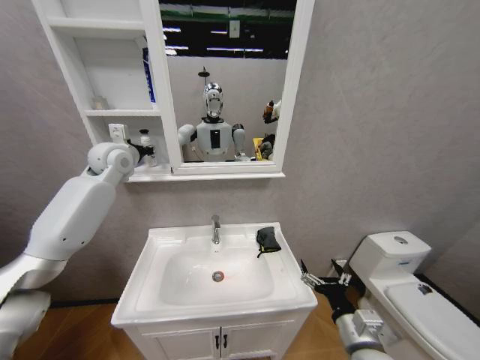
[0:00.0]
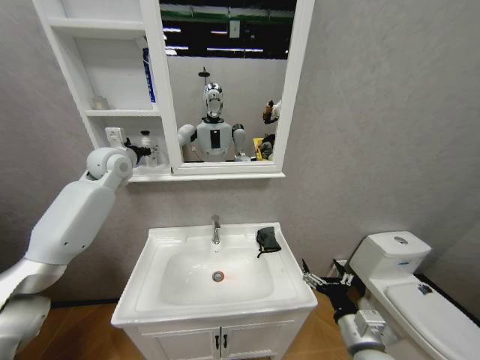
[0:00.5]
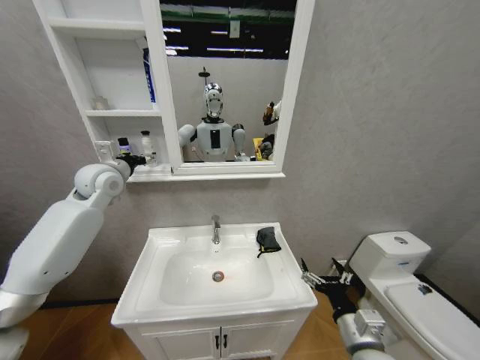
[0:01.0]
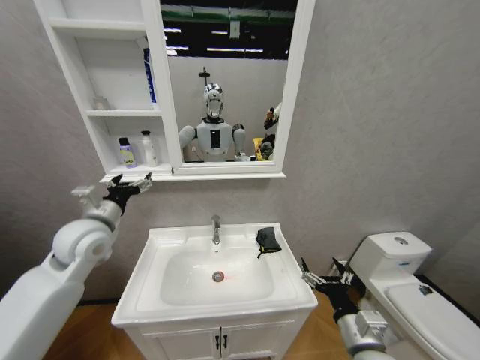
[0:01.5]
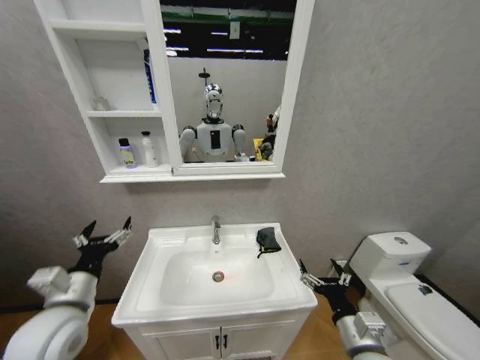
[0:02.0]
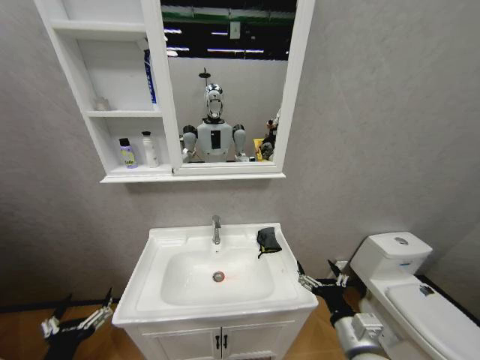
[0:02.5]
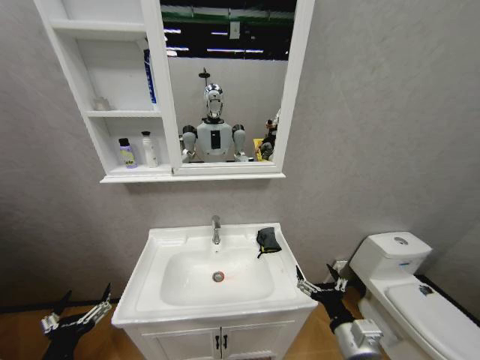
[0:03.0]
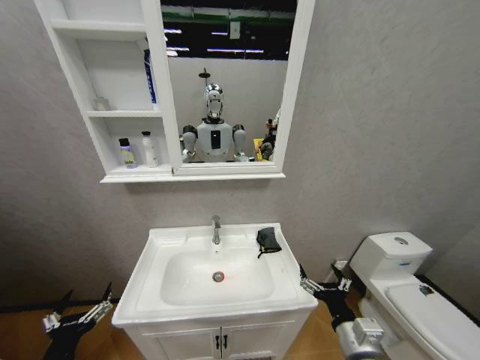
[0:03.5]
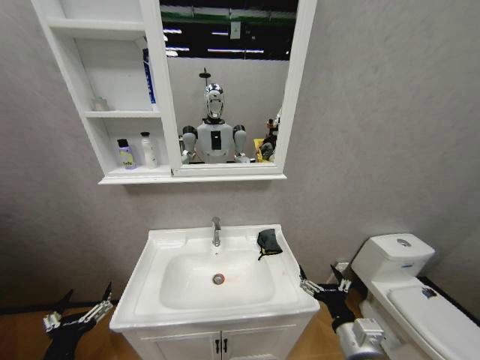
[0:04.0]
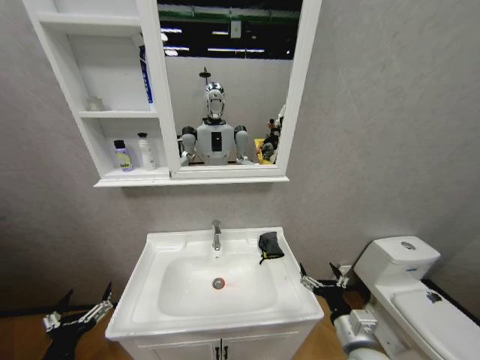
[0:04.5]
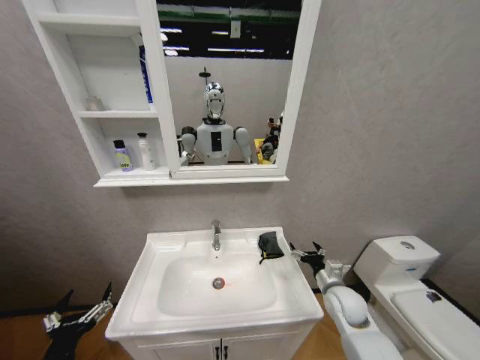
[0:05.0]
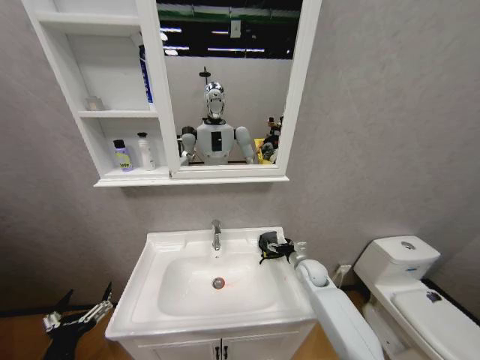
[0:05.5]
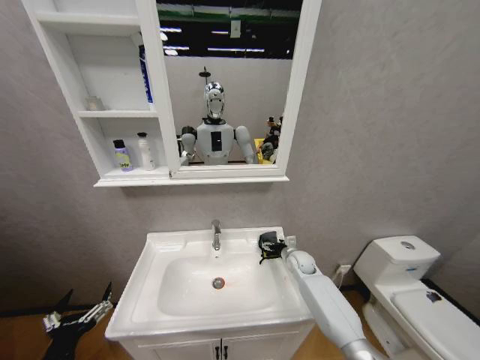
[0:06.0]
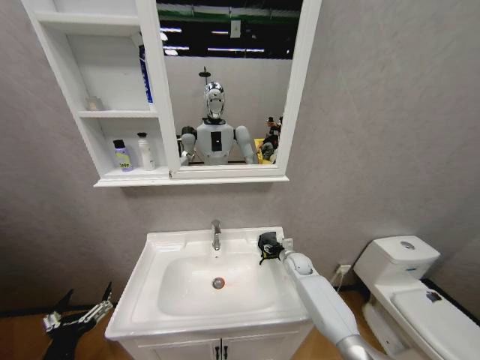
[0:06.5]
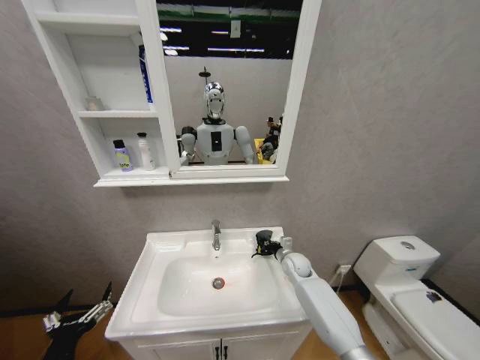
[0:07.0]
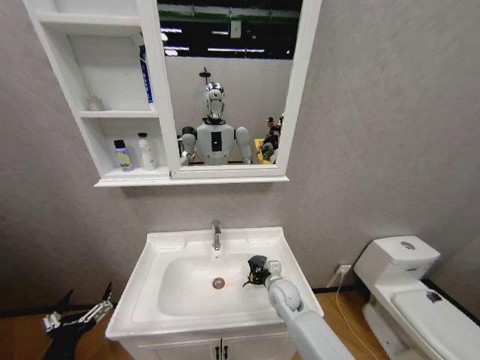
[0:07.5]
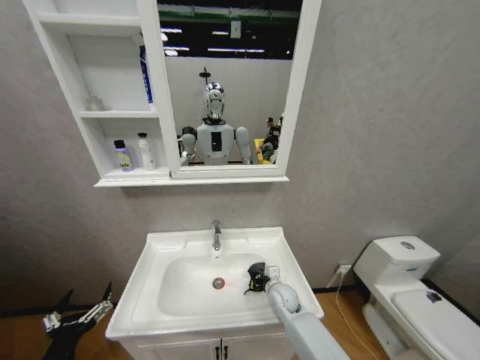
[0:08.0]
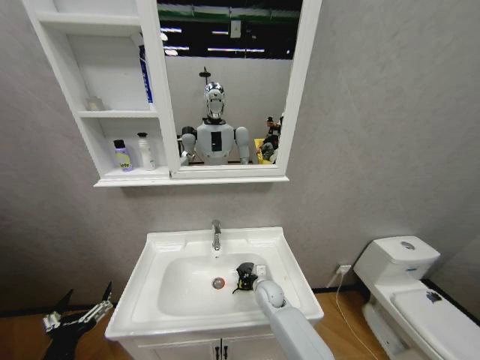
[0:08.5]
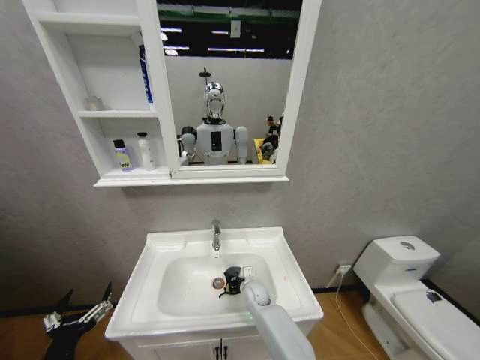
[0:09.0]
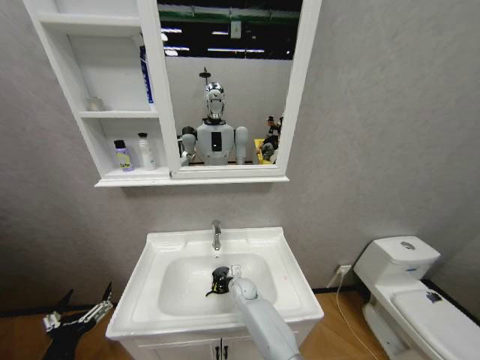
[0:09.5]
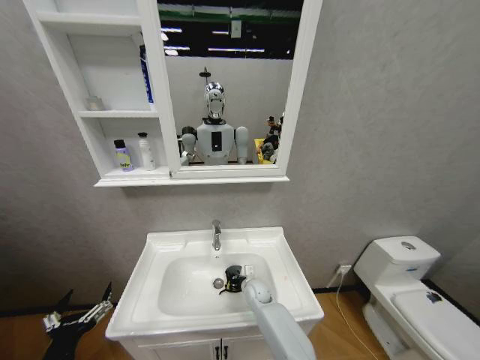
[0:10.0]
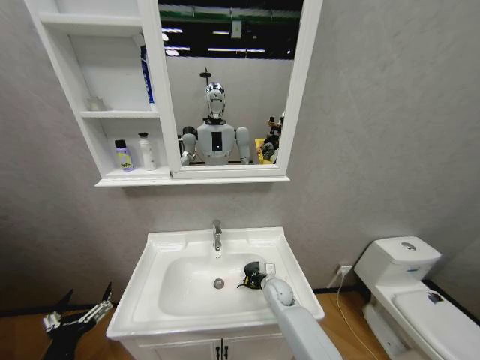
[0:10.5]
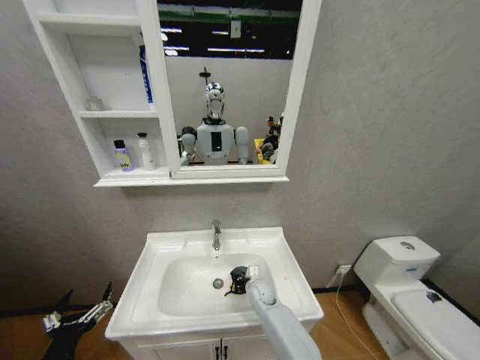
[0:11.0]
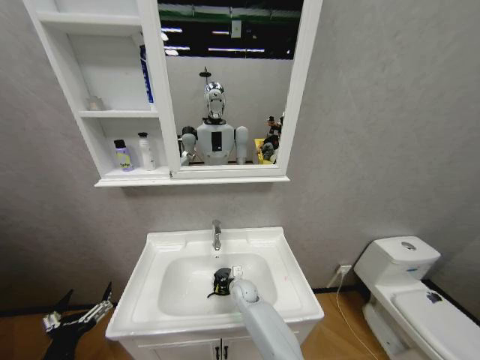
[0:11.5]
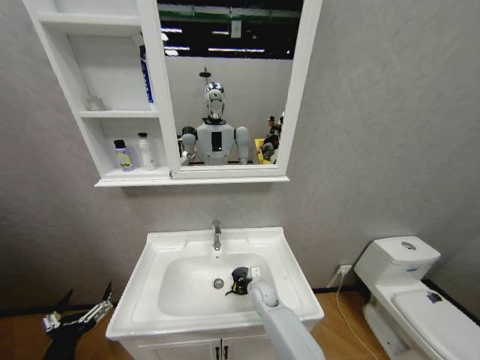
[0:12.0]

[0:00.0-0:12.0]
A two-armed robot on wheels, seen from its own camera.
Task of the whole recording: Move facial cleanser and shampoo from washbasin to cabinet, then wipe washbasin with towel.
0:00.0 to 0:02.0: The left gripper heads backward and downward, covering approximately 40 cm, and opens.
0:02.0 to 0:04.0: The left gripper moves backward and downward, approximately 15 cm.
0:04.0 to 0:06.0: The right gripper goes some 35 cm forward.
0:06.0 to 0:08.0: The right gripper shifts about 15 cm backward, to the left and downward, and closes up.
0:08.0 to 0:10.0: The right gripper is displaced to the left by some 10 cm.
0:10.0 to 0:12.0: The right gripper moves left and right over about 10 cm, changing direction 2 times.

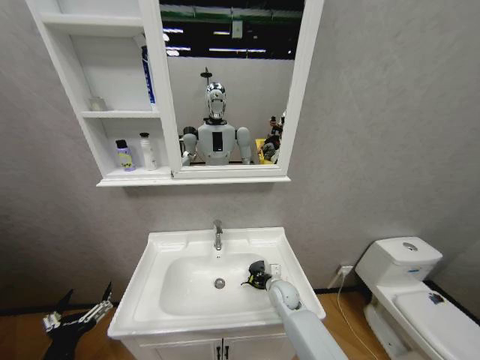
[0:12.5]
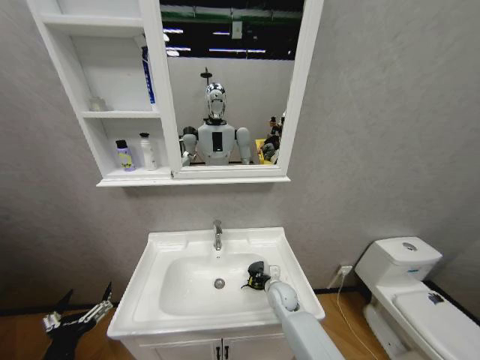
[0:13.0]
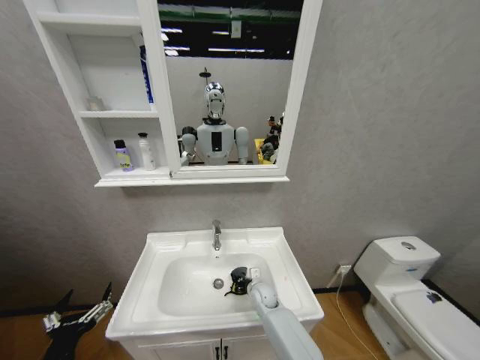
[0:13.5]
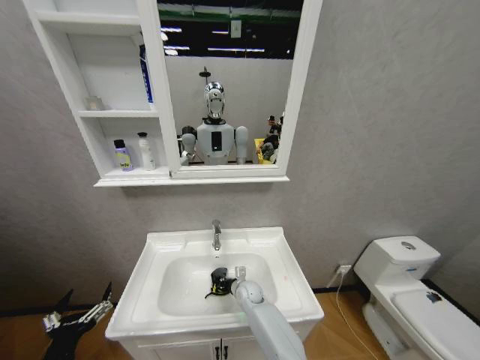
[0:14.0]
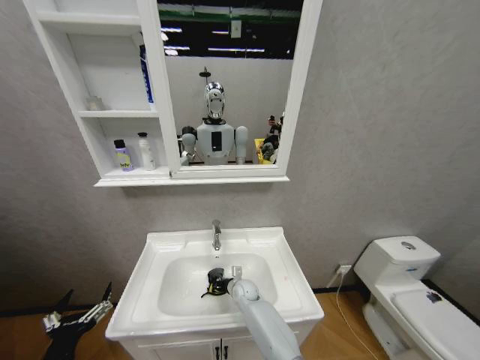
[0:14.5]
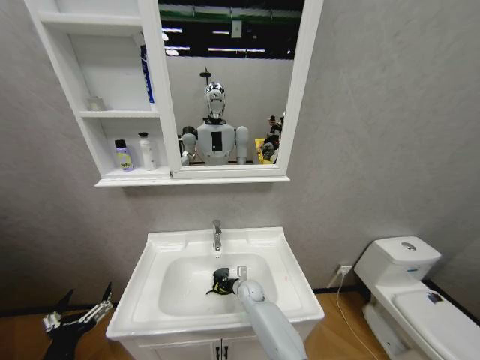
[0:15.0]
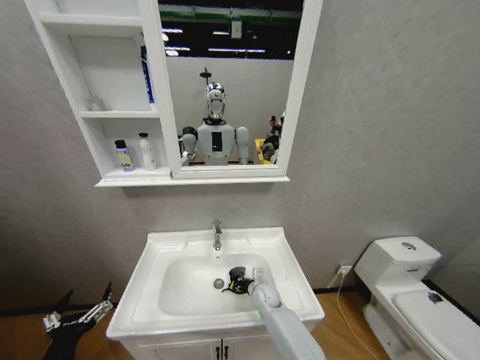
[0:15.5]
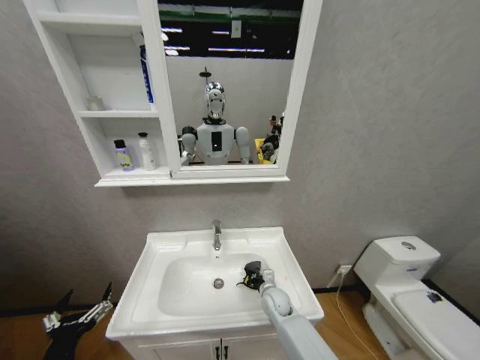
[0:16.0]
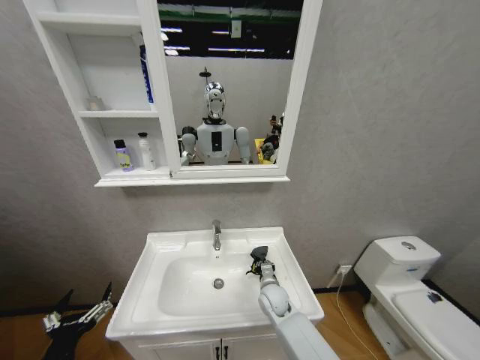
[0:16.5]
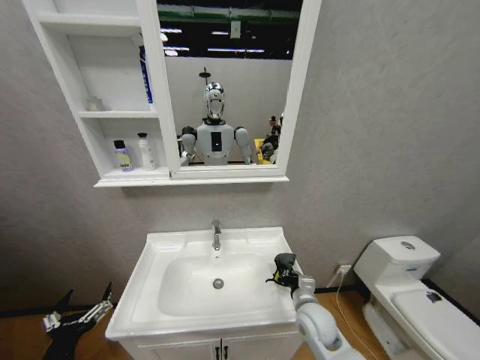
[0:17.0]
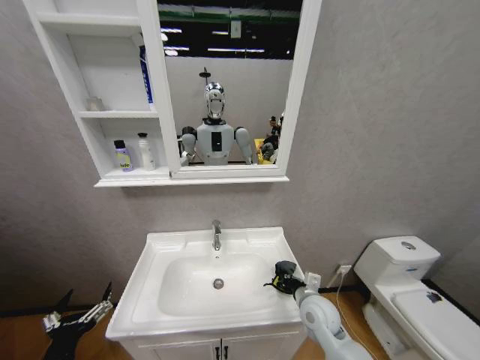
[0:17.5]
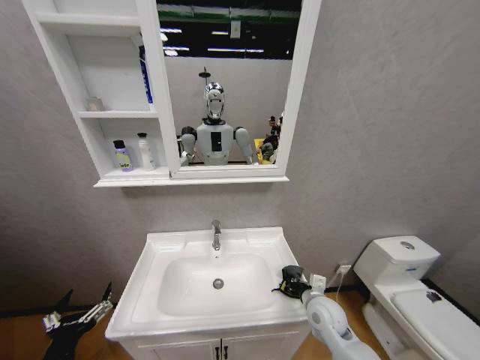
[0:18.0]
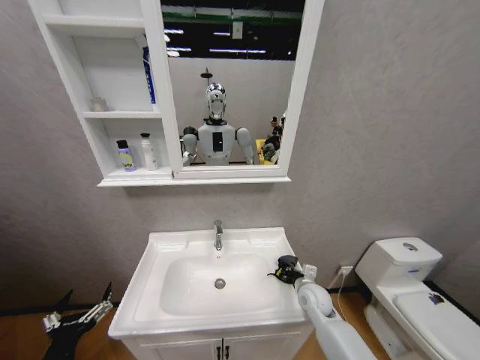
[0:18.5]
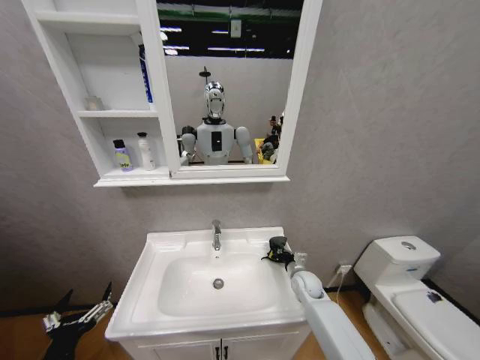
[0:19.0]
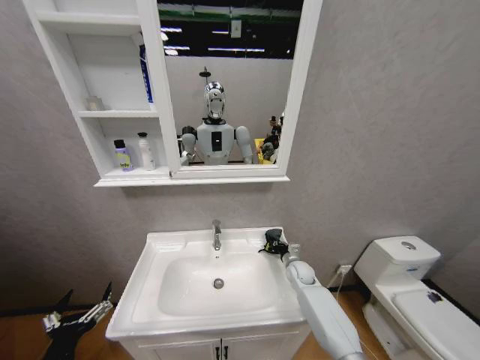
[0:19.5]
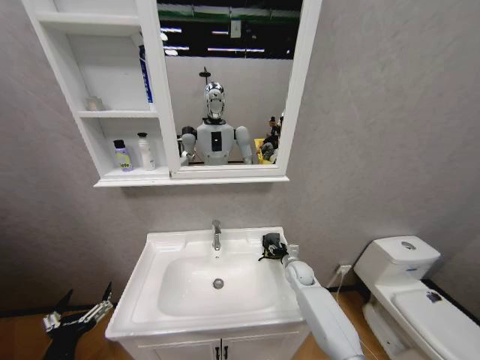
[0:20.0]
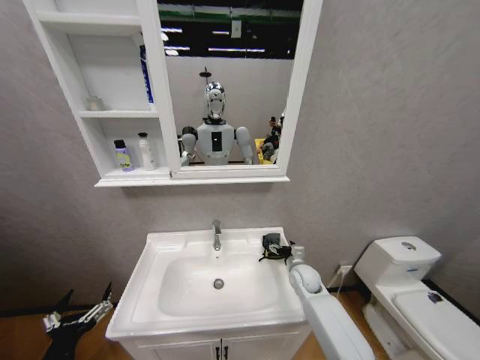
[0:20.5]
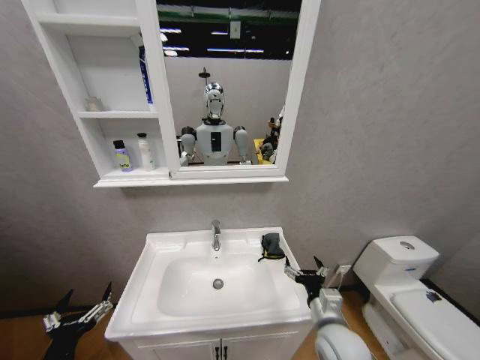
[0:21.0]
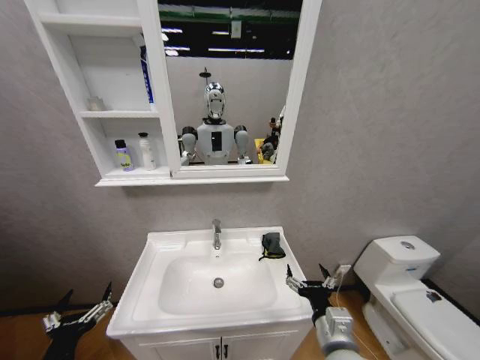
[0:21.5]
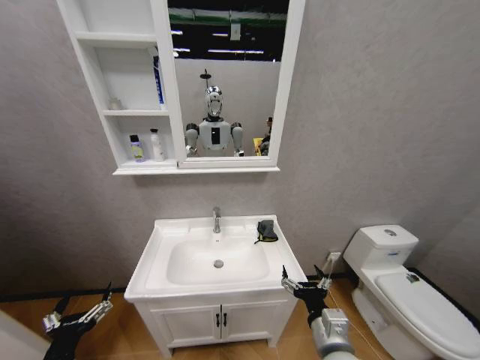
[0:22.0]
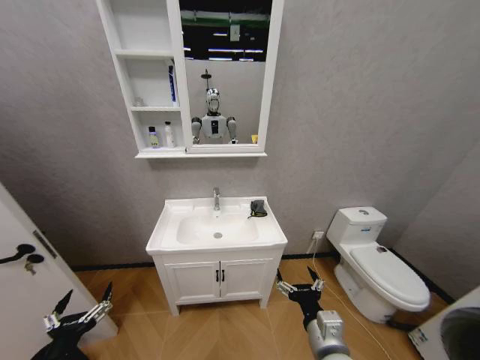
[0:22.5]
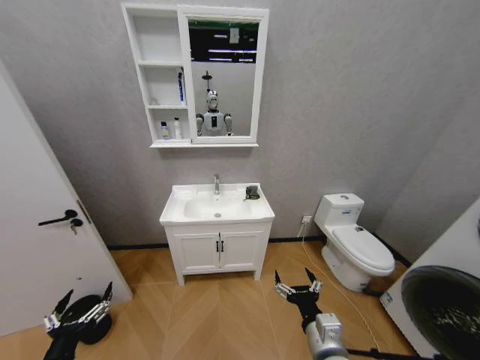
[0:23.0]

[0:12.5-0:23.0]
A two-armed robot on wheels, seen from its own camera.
Task of the whole recording: Move facial cleanser and shampoo from washbasin to cabinet, then wipe washbasin with towel.
0:12.5 to 0:14.5: The right gripper is displaced to the left and downward by about 15 cm.
0:14.5 to 0:16.5: The right gripper goes about 10 cm to the right, backward and upward.
0:16.5 to 0:19.0: The right gripper is displaced to the right by roughly 15 cm, and travels backward and back again, approximately 10 cm each way.
0:19.0 to 0:21.0: The right gripper shifts approximately 20 cm backward and upward, and opens.
0:21.0 to 0:23.0: The right gripper moves backward, approximately 5 cm.

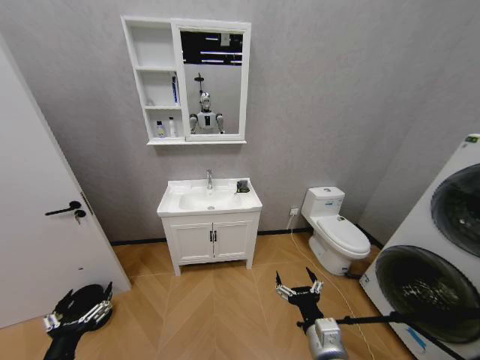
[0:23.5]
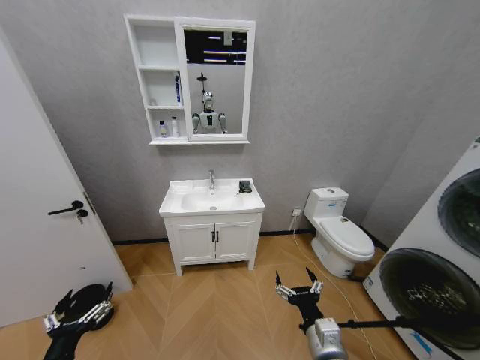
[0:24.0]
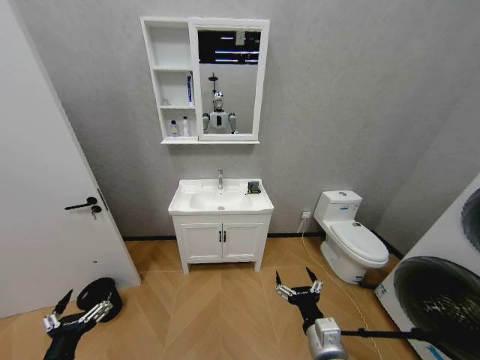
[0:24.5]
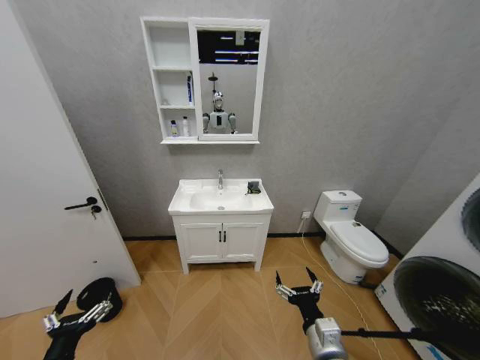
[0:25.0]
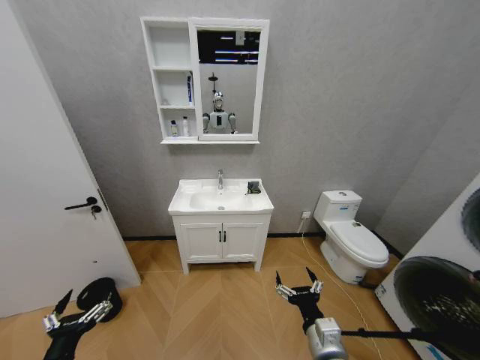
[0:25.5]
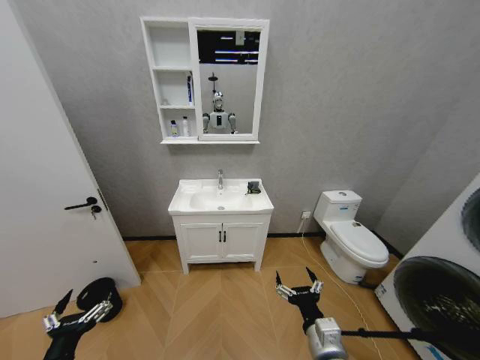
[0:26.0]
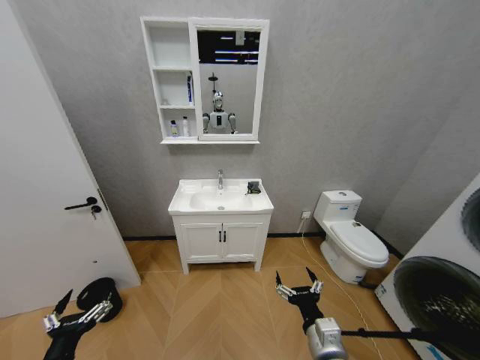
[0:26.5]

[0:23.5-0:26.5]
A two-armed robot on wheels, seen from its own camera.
Task of the whole recording: Move facial cleanser and shampoo from washbasin to cabinet, then wipe washbasin with towel.
0:25.0 to 0:26.5: The two grippers keep their place.
